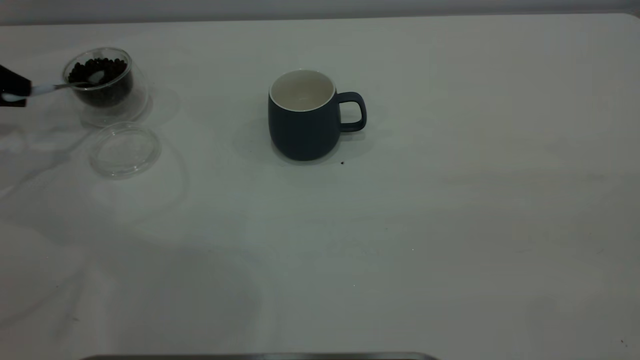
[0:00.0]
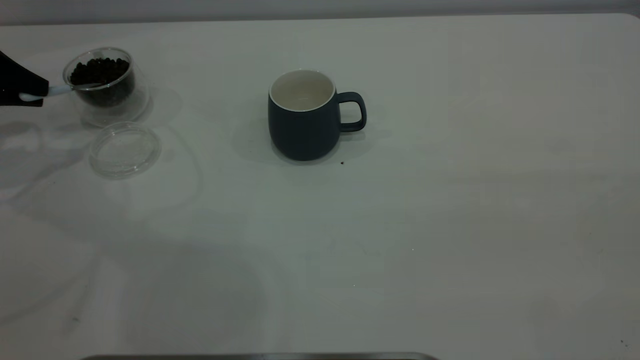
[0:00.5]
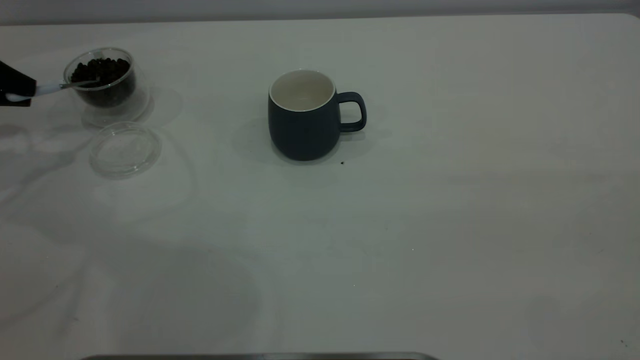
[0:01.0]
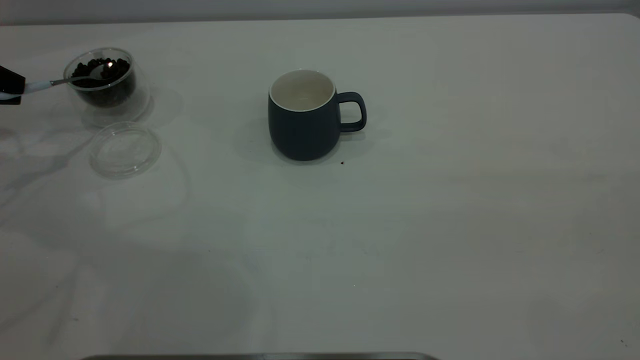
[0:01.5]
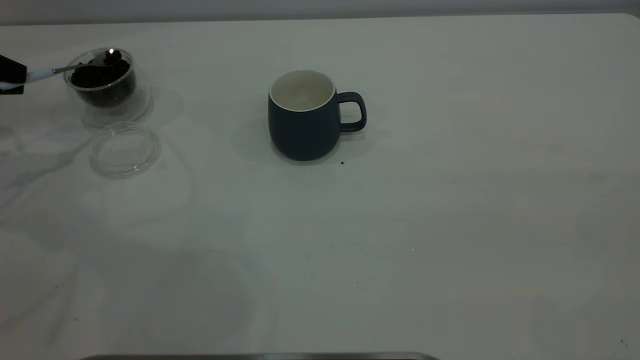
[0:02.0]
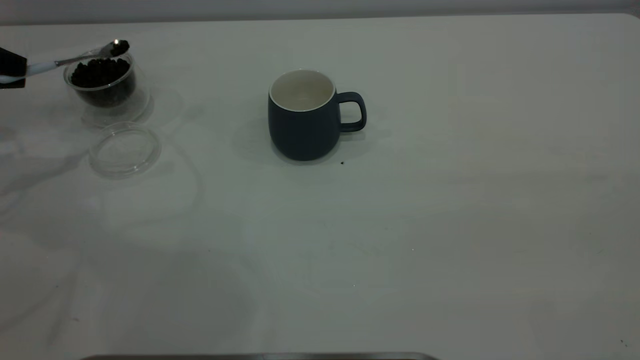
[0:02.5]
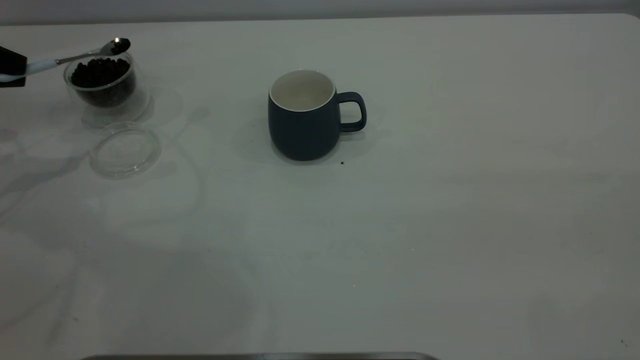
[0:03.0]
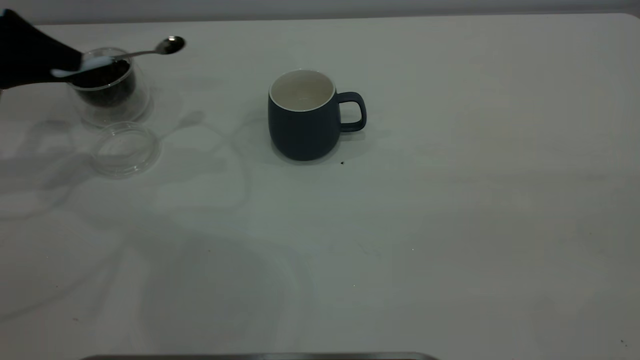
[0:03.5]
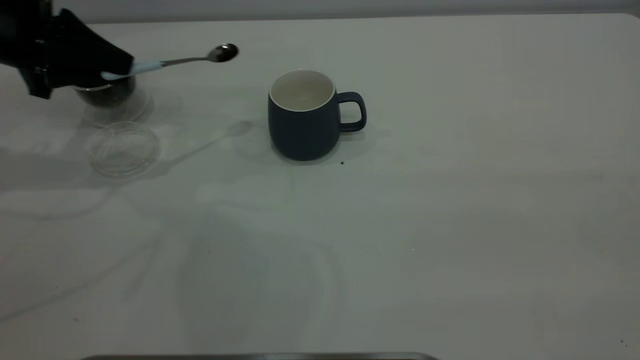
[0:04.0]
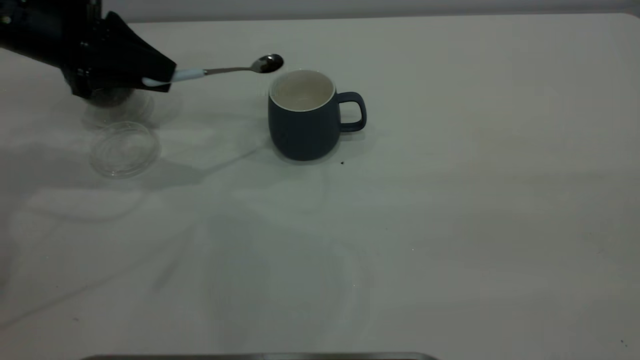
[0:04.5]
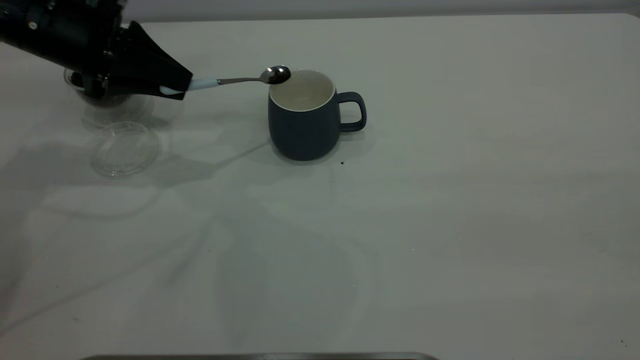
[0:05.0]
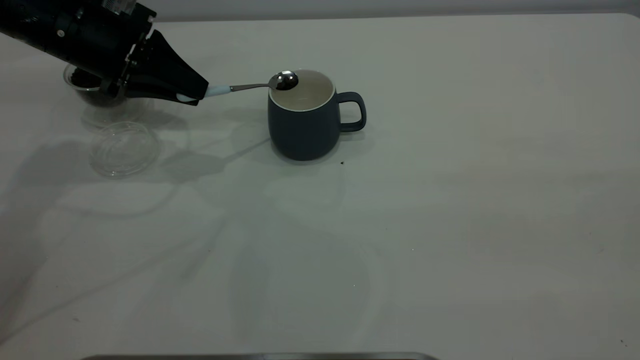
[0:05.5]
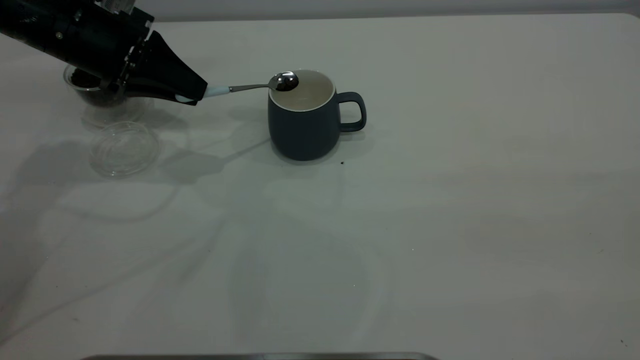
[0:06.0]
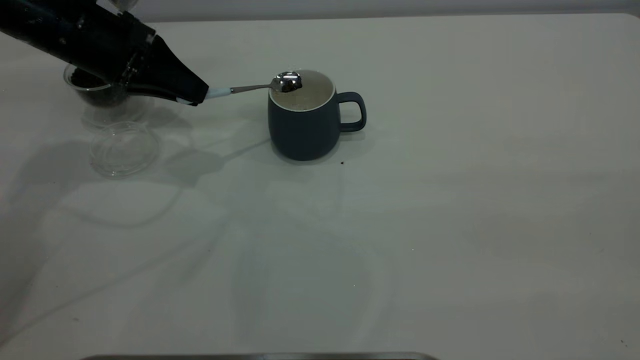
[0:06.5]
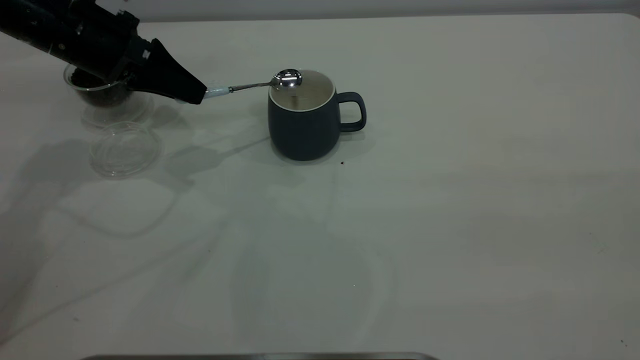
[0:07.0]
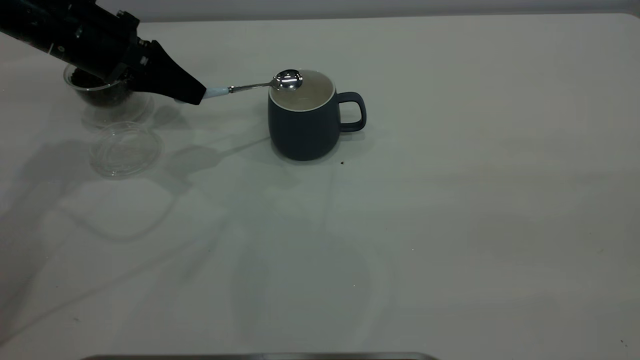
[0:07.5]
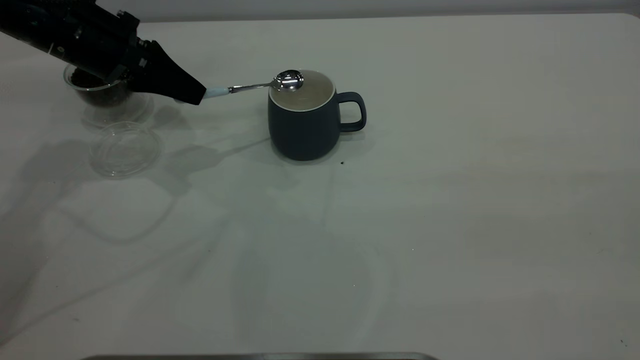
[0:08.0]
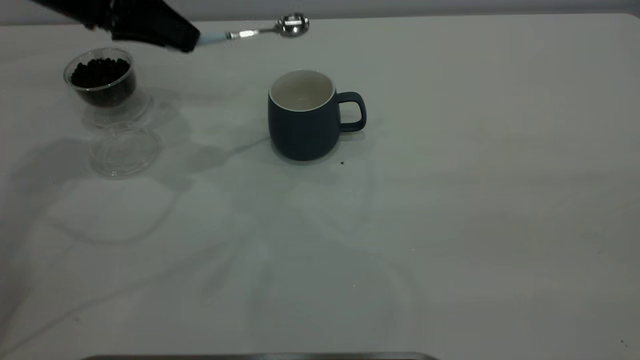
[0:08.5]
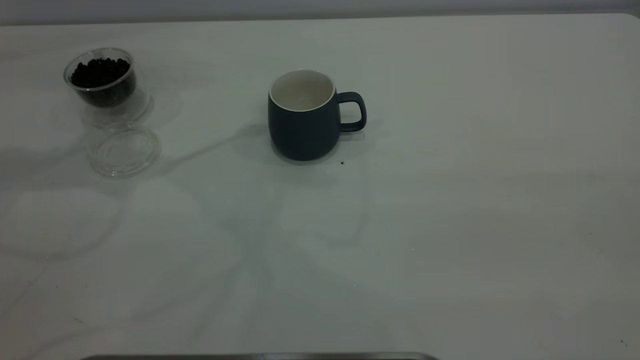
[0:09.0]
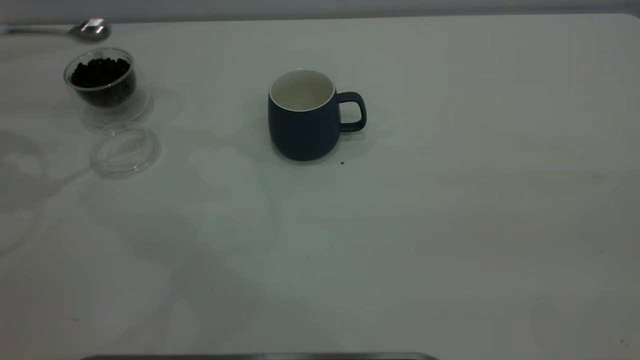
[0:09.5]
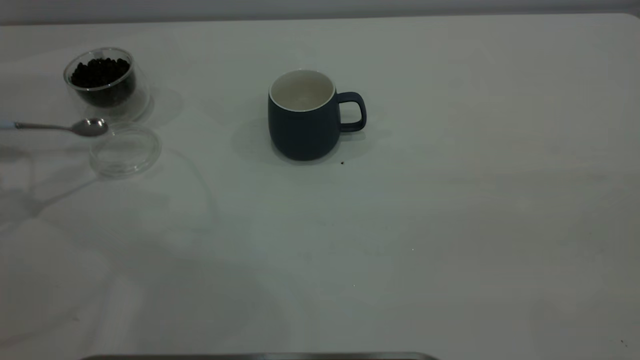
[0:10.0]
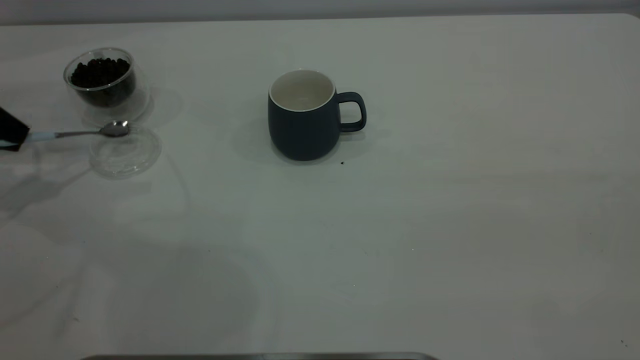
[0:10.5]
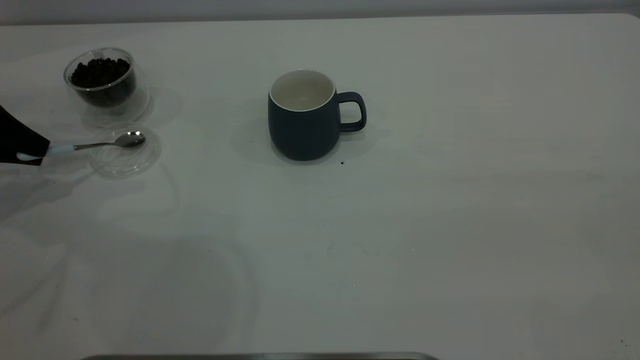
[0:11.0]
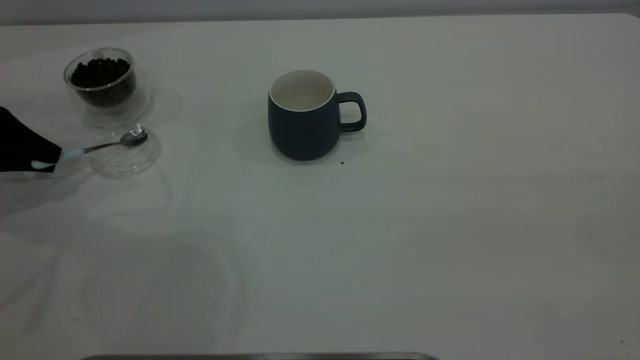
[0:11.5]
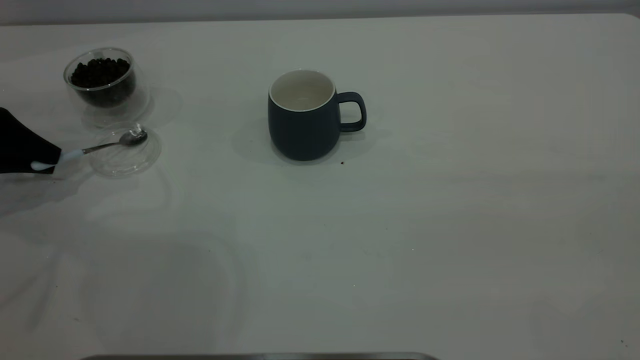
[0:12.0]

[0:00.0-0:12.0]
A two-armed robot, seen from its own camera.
Task of the whole recording: the right gripper place the grey cup in the center of the table, the left gripper take the blue spoon from the cup lid and scoop out the coffee beans from the coffee cup and put them into the grey cup, the left gripper put the spoon back into the cup lid.
Step, 0:00.0 to 0:08.5: Scoop a spoonful of beans into the cup.
0:02.0 to 0:04.0: The left gripper moves to the right, approximately 10 cm.
0:04.0 to 0:06.0: The left gripper travels to the right by roughly 5 cm.
0:08.0 to 0:10.0: The left gripper moves to the left, roughly 20 cm.
0:10.0 to 0:12.0: The left gripper travels downward by roughly 10 cm.

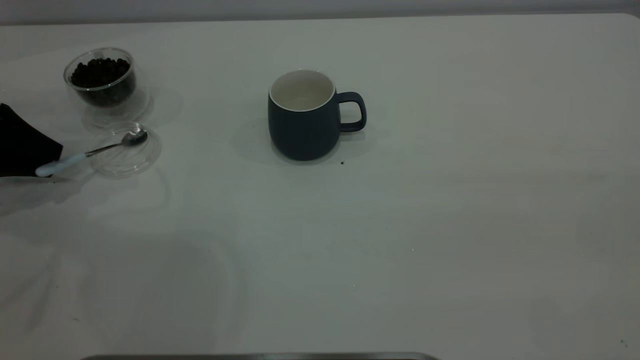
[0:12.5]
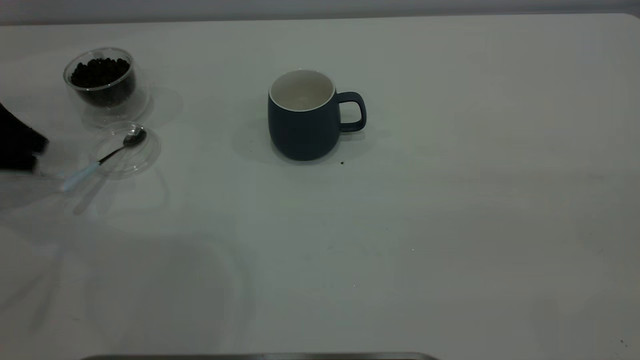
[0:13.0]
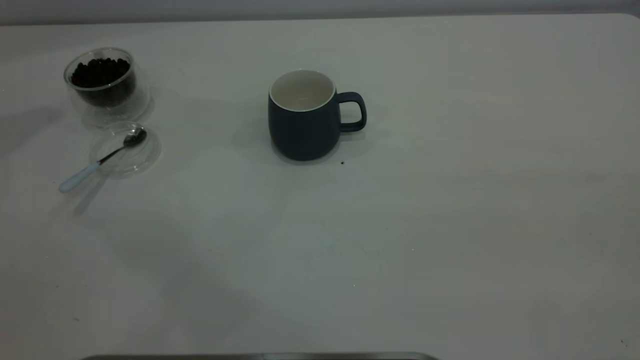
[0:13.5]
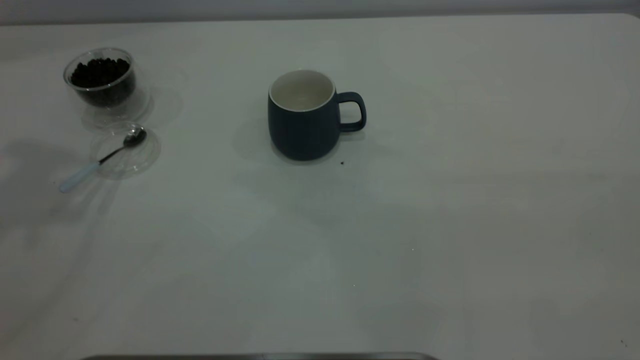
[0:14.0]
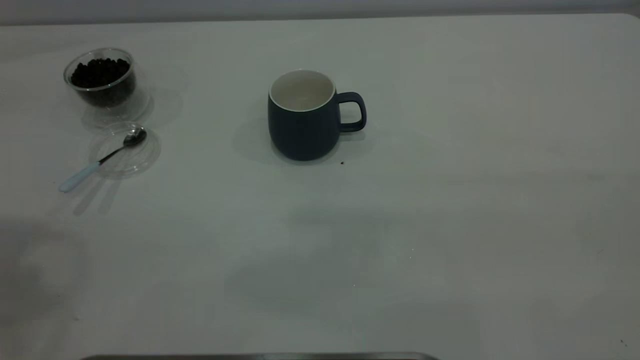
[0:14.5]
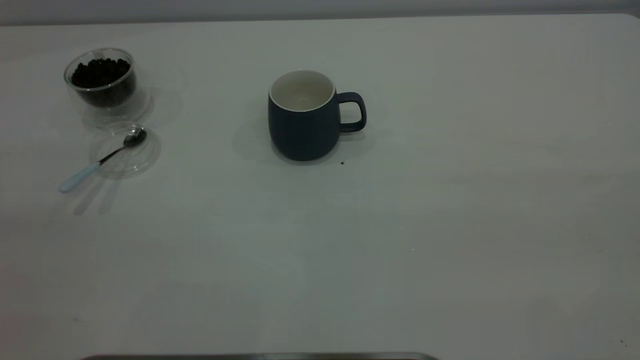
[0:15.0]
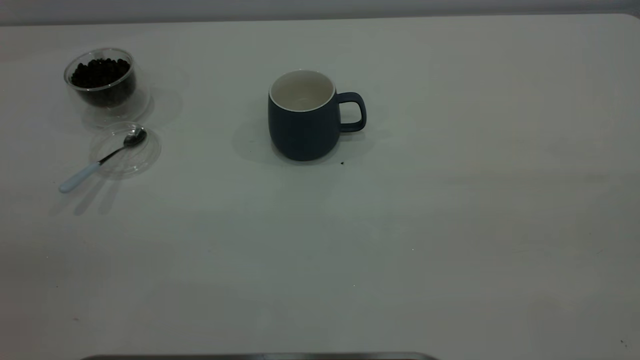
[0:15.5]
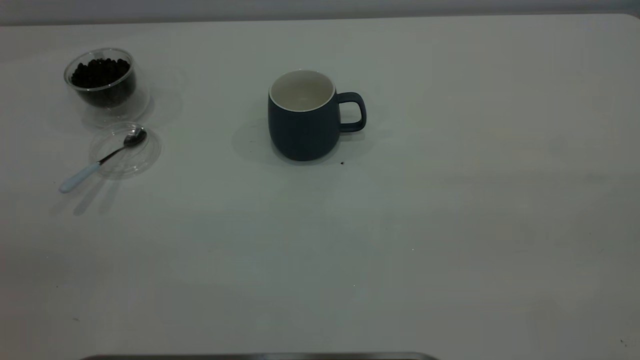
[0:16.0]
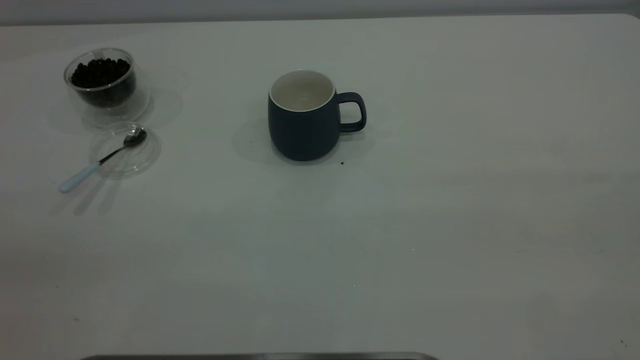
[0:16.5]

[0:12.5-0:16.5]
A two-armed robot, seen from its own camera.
Task of the whole recording: the right gripper place the grey cup in the center of the table, the left gripper take the blue spoon from the cup lid and scoop out the coffee beans from the coffee cup and put them into the grey cup, the left gripper put the spoon back into the cup lid.
0:12.5 to 0:14.5: The left gripper travels upward and backward by roughly 40 cm.

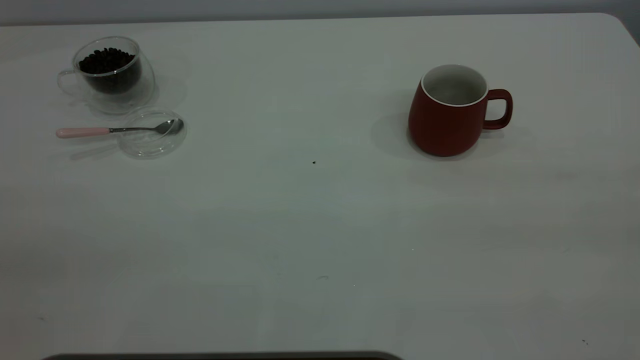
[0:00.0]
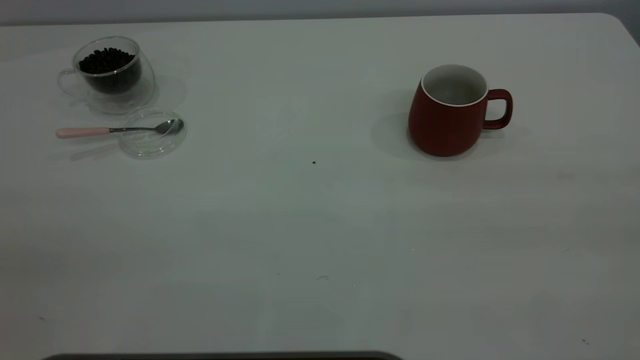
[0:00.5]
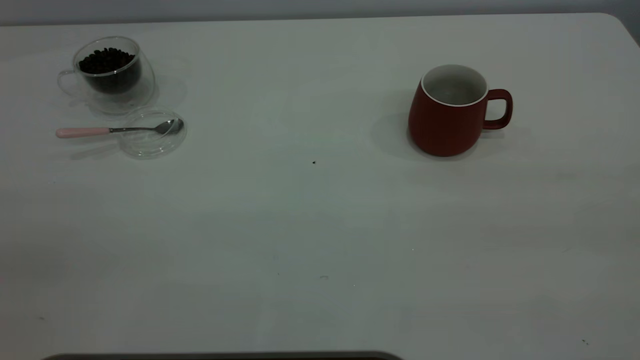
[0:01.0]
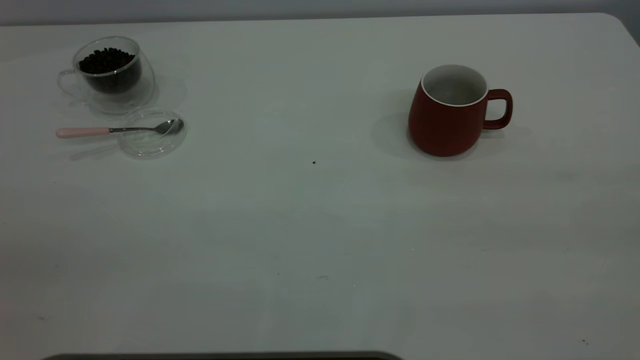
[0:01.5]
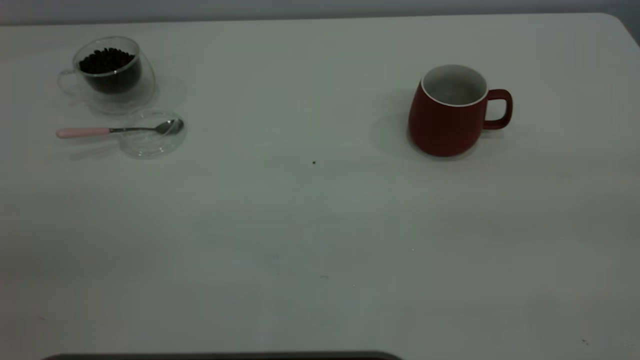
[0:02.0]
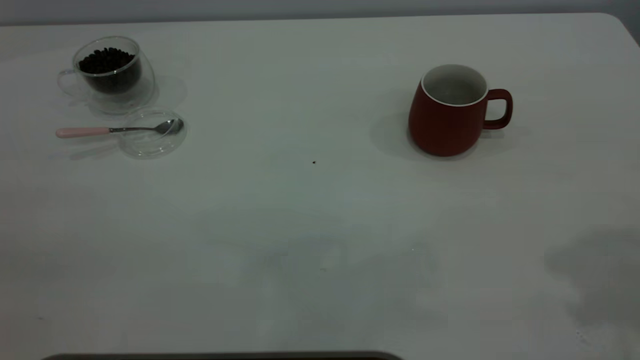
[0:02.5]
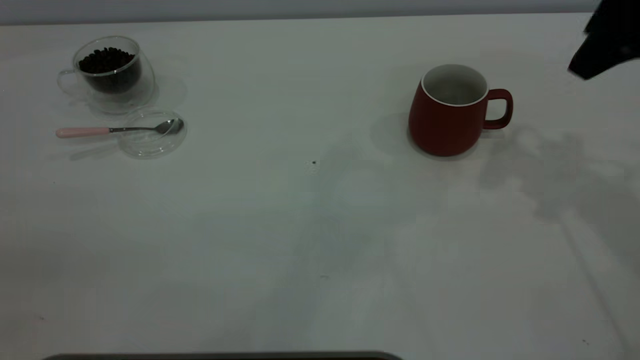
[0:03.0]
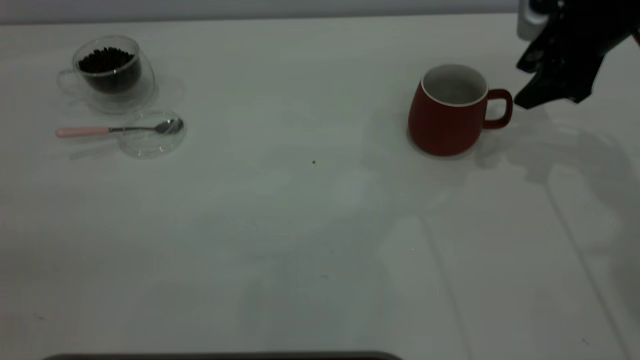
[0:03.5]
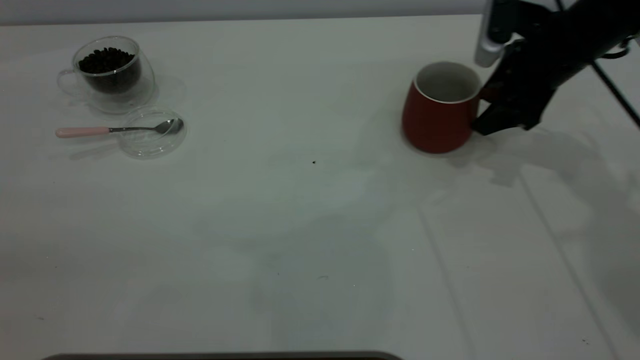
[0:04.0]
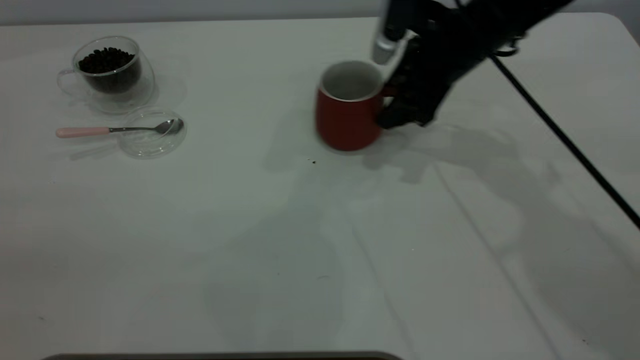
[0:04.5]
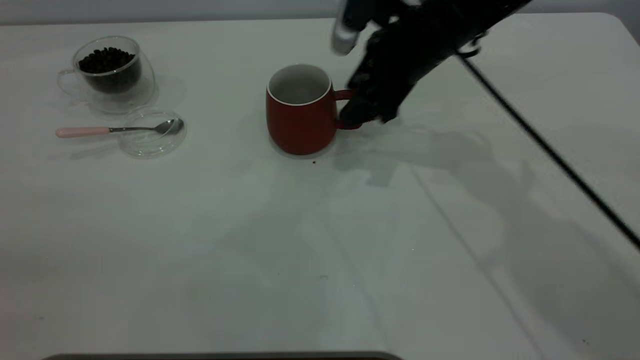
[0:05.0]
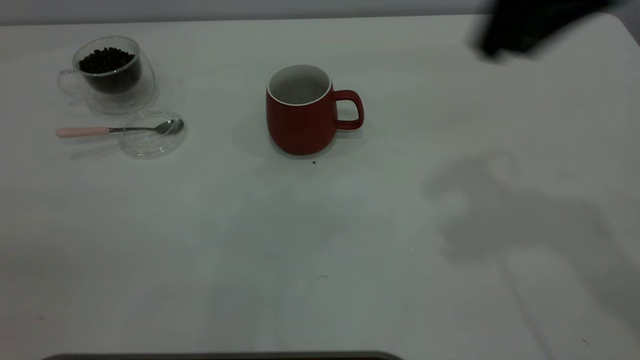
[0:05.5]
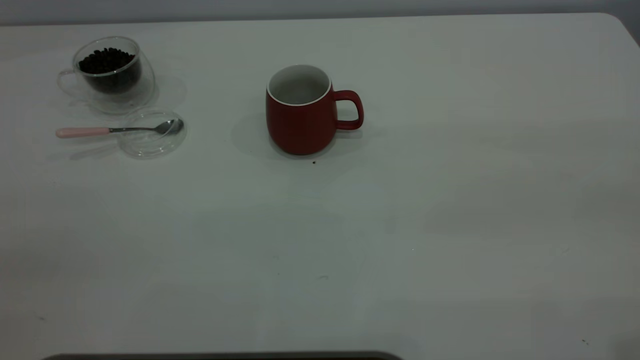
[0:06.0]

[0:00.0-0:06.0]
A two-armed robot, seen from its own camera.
Task of the whole recording: the right gripper place the red cup in the center of the table, the left gripper take the pink spoon from the cup lid and scoop out the coffee beans from the coffee cup and put them into the red cup, the left gripper put the spoon back into the cup lid.
Step, 0:00.0 to 0:05.0: Move the cup to the center of view.
0:02.0 to 0:04.0: The right gripper shifts roughly 50 cm forward and downward.
0:04.0 to 0:06.0: The right gripper shifts about 40 cm backward and upward, and closes its fingers.
